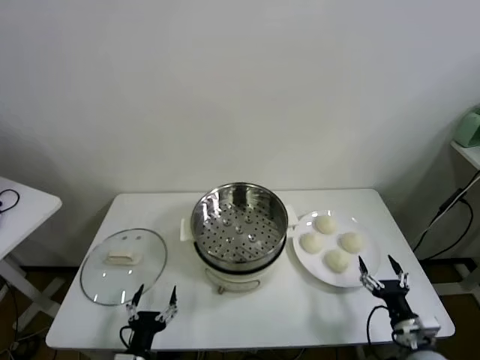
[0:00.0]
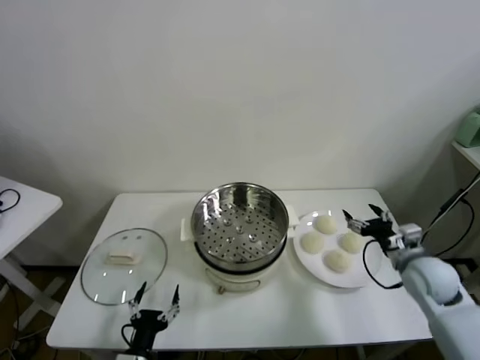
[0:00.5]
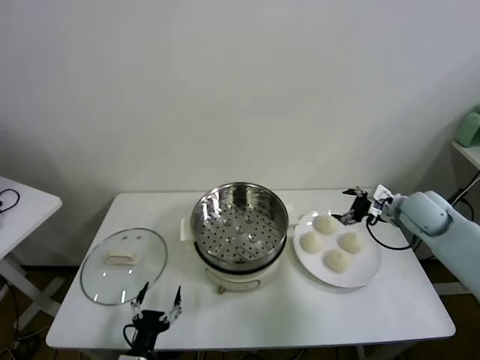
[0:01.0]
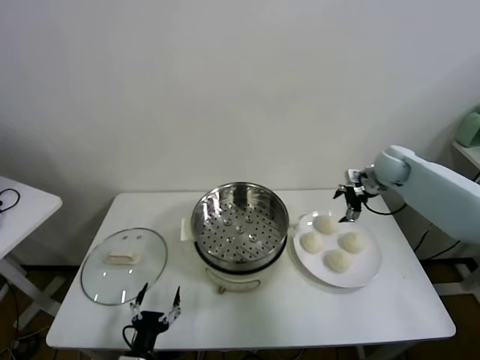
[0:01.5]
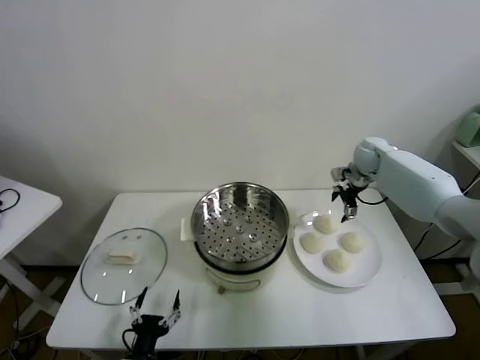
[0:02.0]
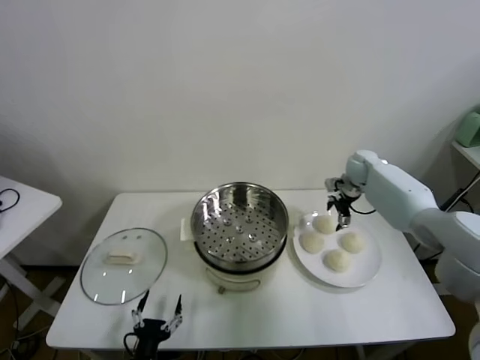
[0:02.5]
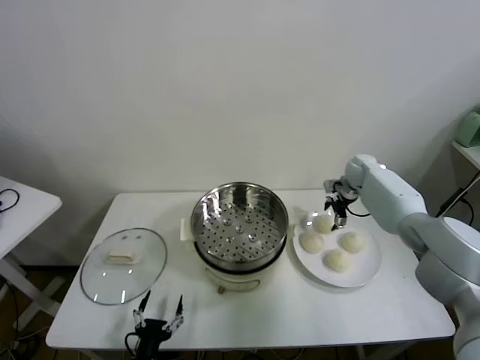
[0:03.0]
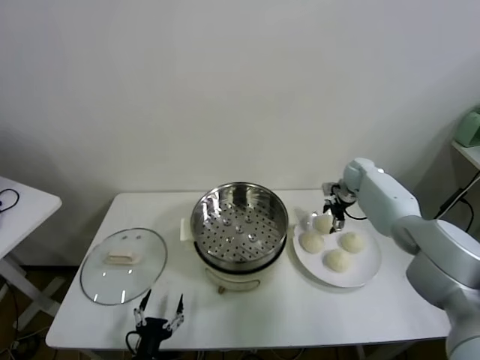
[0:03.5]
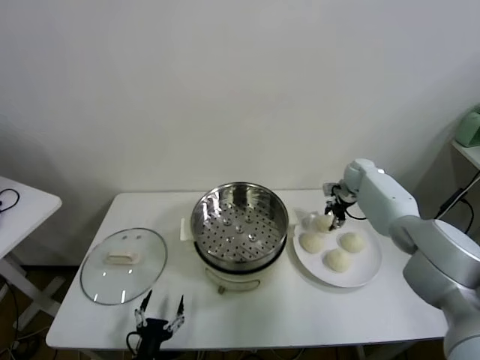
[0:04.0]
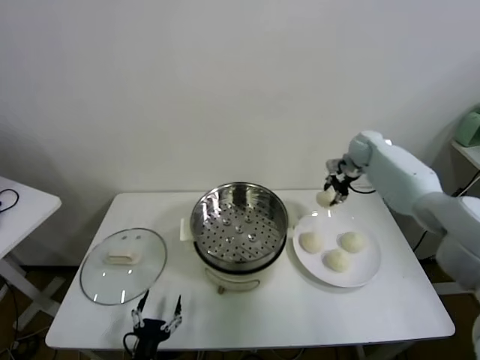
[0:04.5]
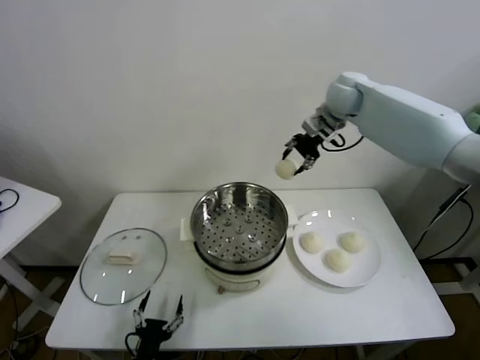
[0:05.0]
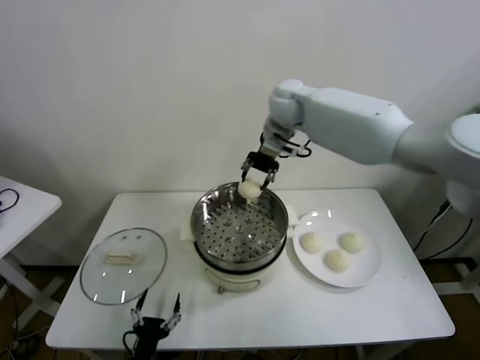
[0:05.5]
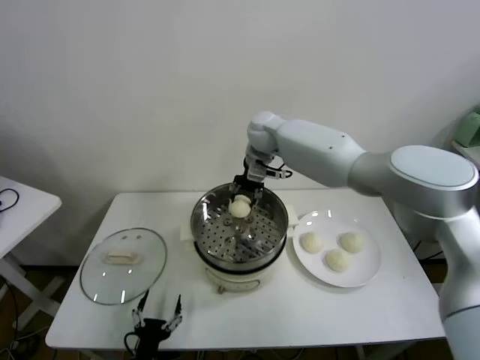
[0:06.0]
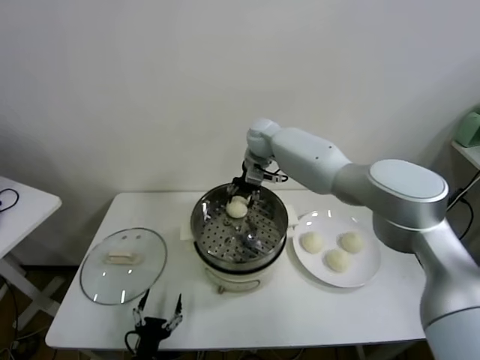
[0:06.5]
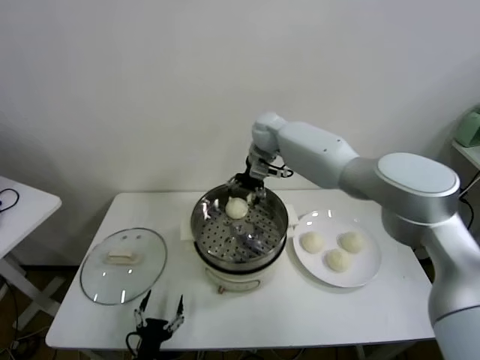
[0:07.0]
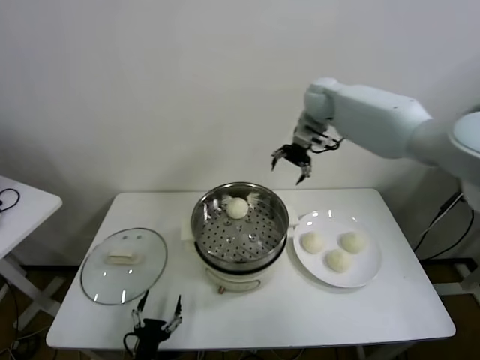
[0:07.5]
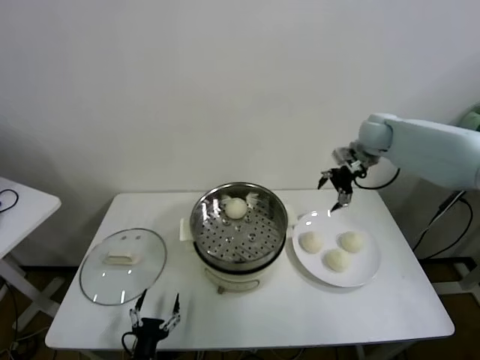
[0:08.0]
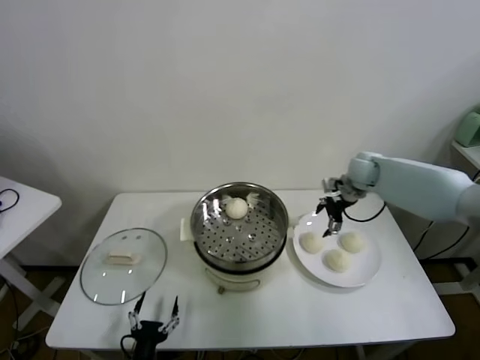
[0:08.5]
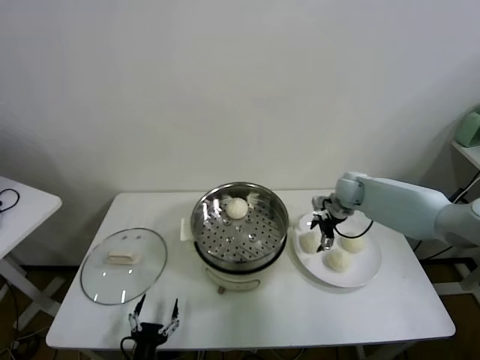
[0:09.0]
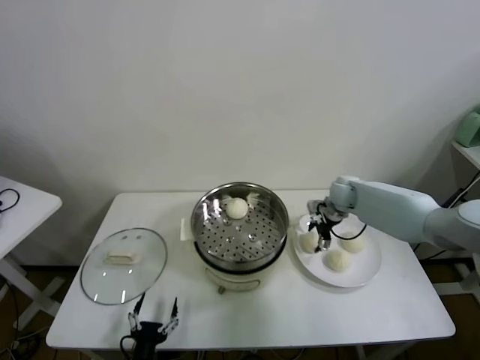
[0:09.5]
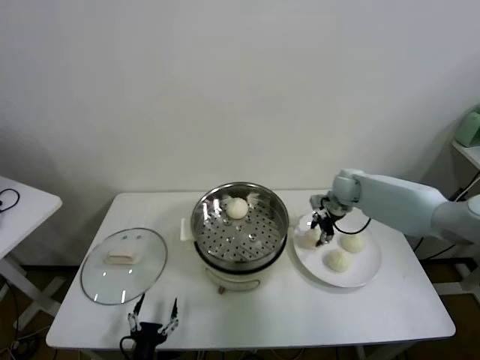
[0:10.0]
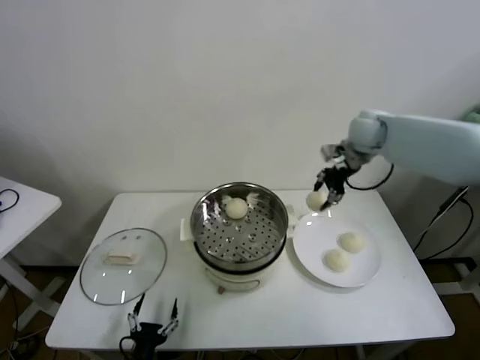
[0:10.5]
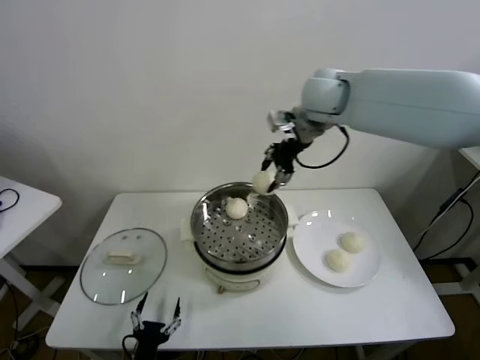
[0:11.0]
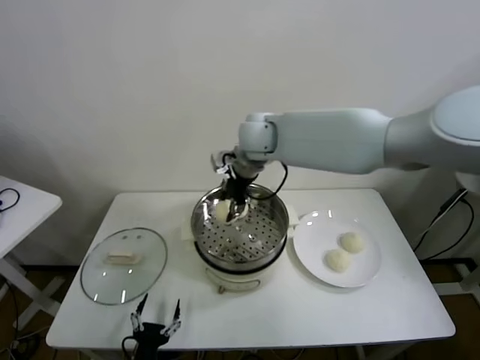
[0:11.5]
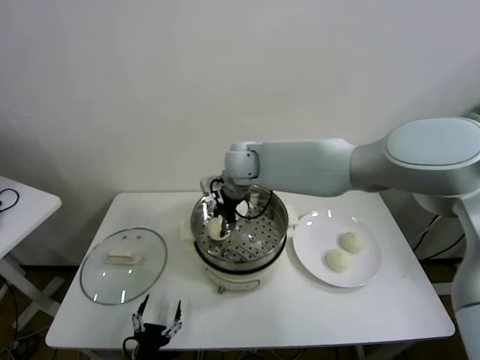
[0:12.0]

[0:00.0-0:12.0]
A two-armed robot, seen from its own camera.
Task of the whole recording: take steamed baozi put them in steamer.
Step, 0.0 to 3.5 s: Grasp the baozi in the plate with right gripper.
Step, 4.0 to 7.0 s: Place the baozi on the steamer with right gripper.
Step, 7.5 to 9.5 s: Grasp the baozi in the plate with right gripper.
2.0 to 4.0 s: The right gripper shifts approximately 5 cm downward, and closes.
4.0 to 6.0 s: The right gripper is displaced to the left and upward by about 35 cm.
6.0 to 8.0 s: The right gripper shifts approximately 30 cm to the right, and opens its fingers.
8.0 to 10.0 s: The right gripper travels downward by approximately 10 cm, and closes.
10.0 to 12.0 s: The right gripper heads to the left, covering roughly 30 cm.

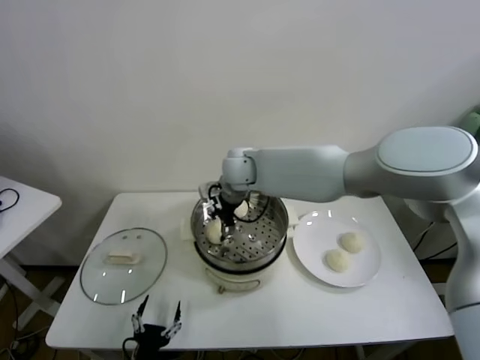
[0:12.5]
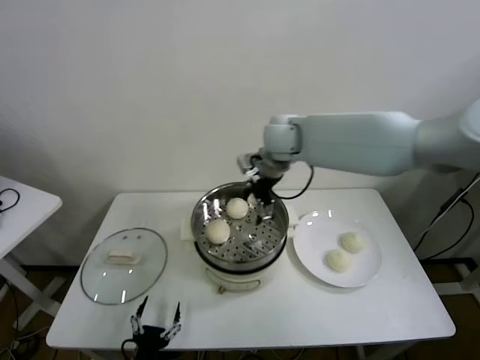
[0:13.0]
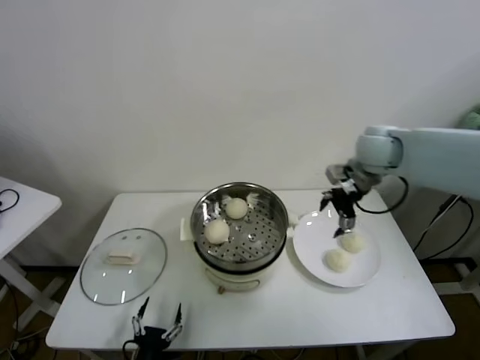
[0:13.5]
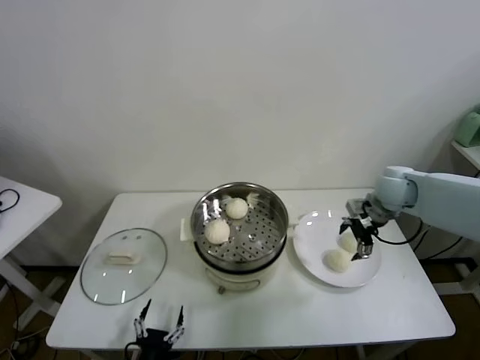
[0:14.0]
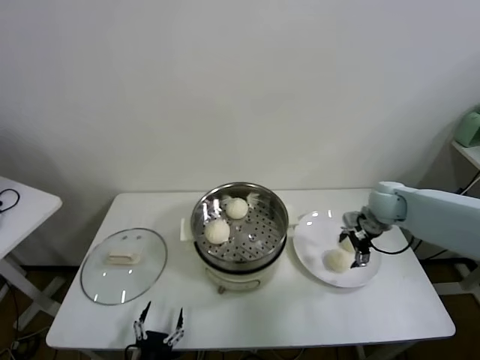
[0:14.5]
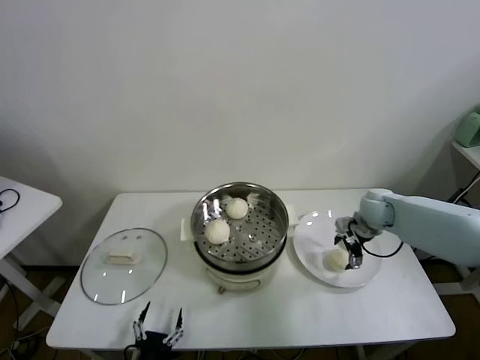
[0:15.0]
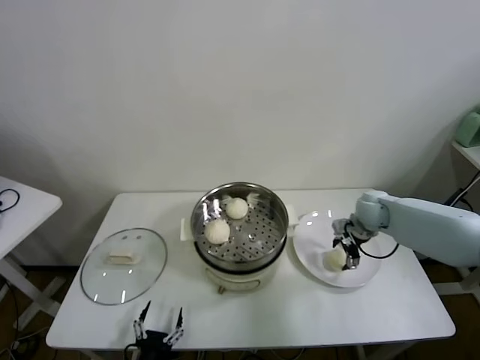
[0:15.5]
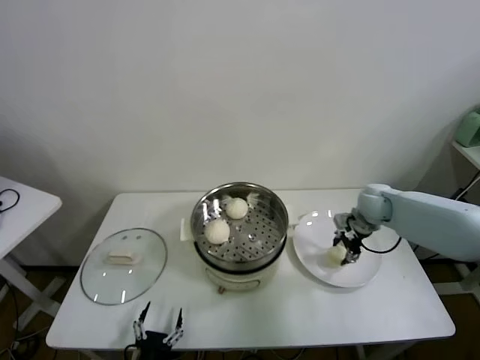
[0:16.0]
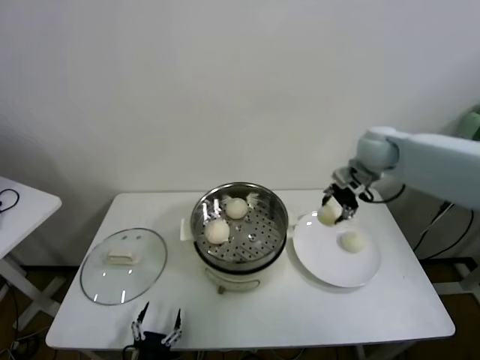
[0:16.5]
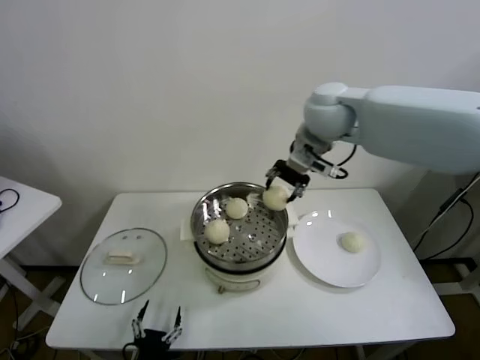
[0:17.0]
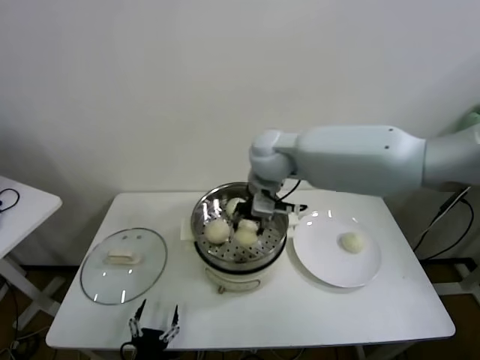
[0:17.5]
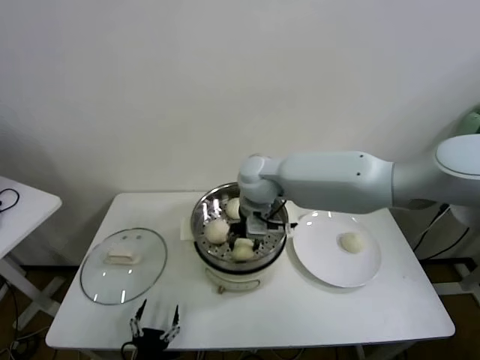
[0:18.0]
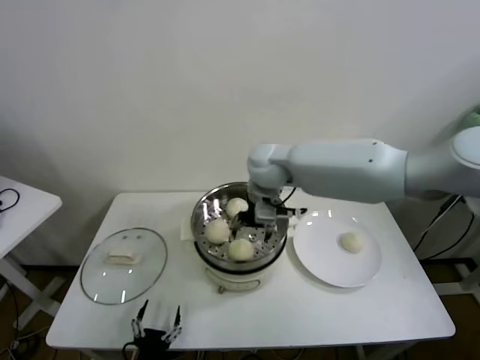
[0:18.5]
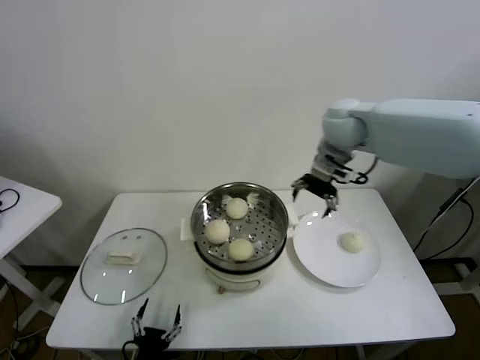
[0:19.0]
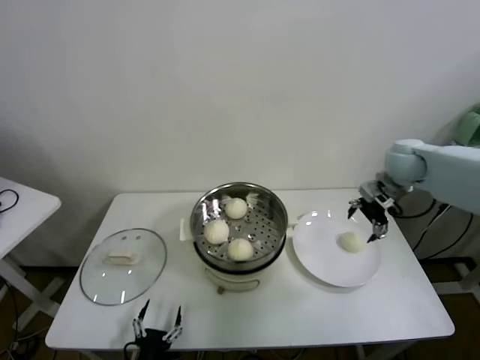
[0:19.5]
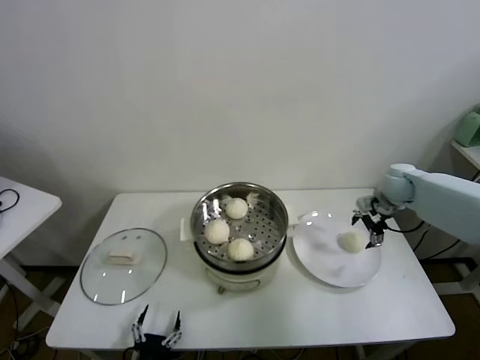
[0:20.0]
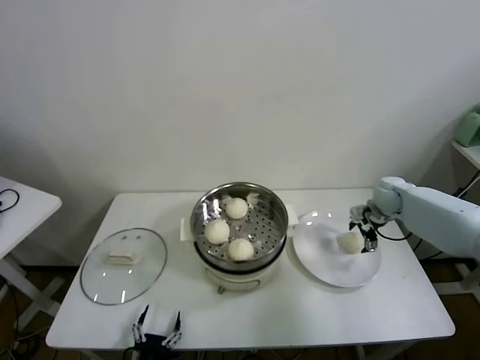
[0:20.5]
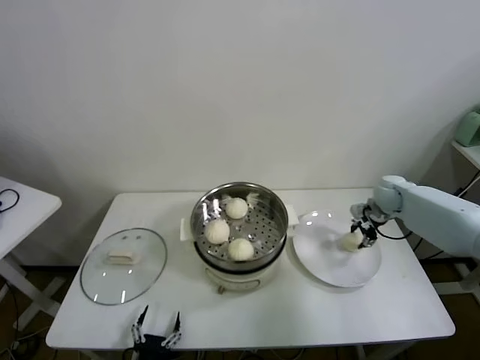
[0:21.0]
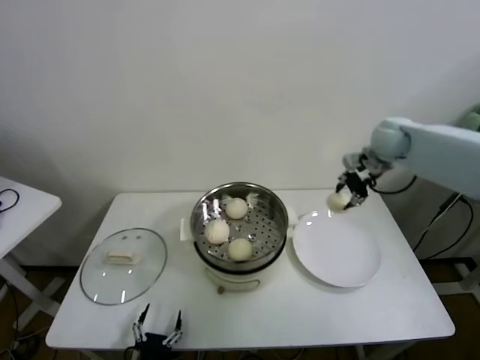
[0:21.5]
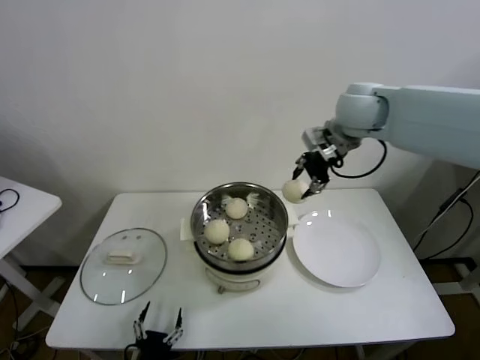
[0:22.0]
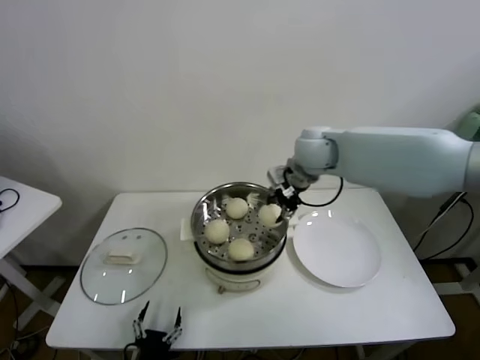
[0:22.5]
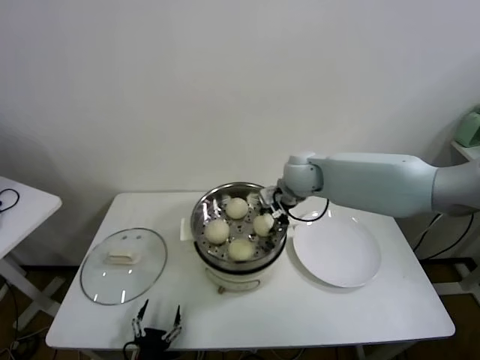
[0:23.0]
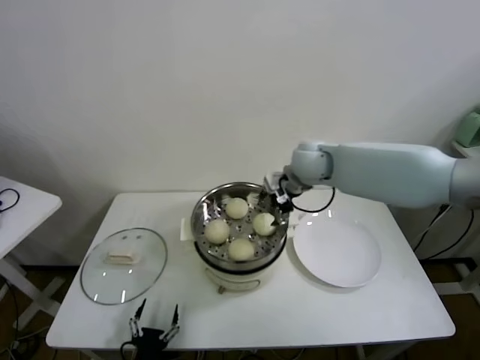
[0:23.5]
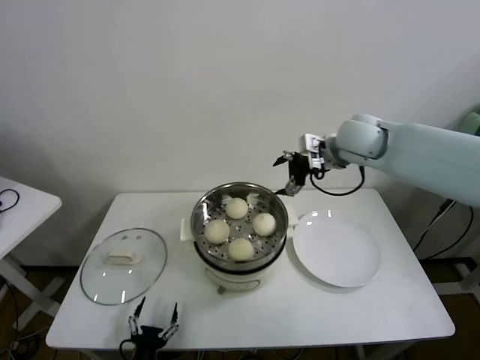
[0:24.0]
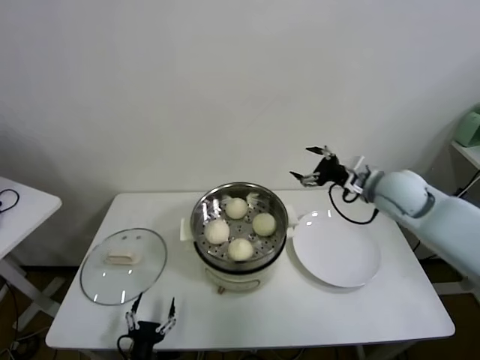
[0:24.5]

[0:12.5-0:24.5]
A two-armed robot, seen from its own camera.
Task of the whole recording: take steamed baozi put them in steamer.
Step, 13.0 to 15.5 s: Grasp the baozi in the plate with right gripper.
Step, 16.0 to 18.0 s: Place the baozi on the steamer with right gripper.
Step, 18.5 to 20.5 s: Grasp the baozi in the plate with right gripper.
Step, 21.0 to 23.0 s: Place the baozi on the steamer with right gripper.
12.5 to 14.5 s: The right gripper goes roughly 35 cm to the right.
14.5 to 16.5 s: The right gripper travels upward by roughly 15 cm, and closes.
16.5 to 18.5 s: The right gripper heads to the left, covering approximately 25 cm, and opens.
18.5 to 20.5 s: The right gripper travels to the right and downward by some 35 cm.
20.5 to 22.5 s: The right gripper heads to the left and upward, covering some 30 cm, and closes.
22.5 to 24.5 s: The right gripper is displaced to the right and backward by some 20 cm, and opens its fingers.

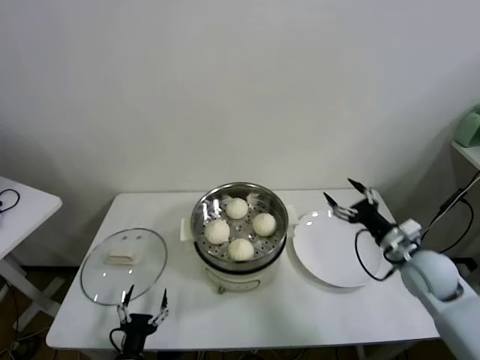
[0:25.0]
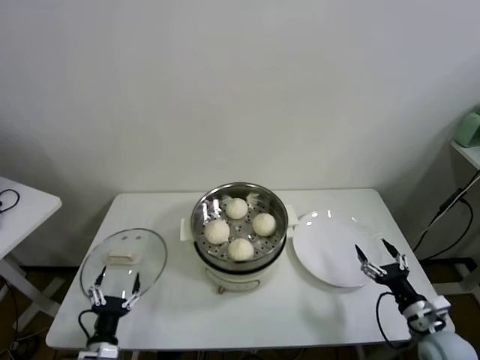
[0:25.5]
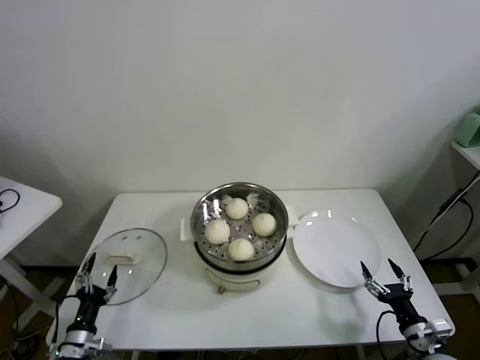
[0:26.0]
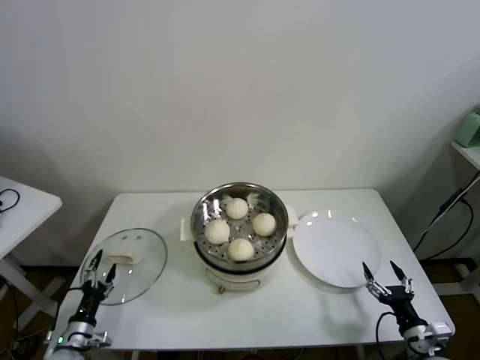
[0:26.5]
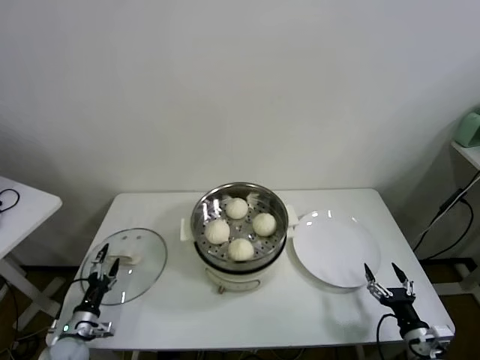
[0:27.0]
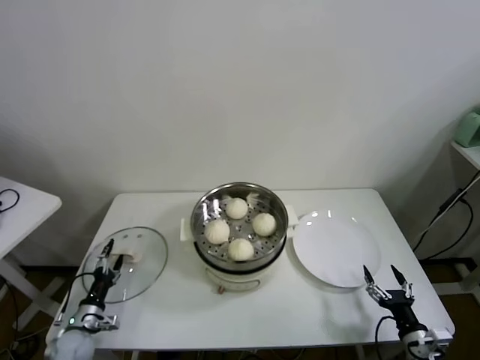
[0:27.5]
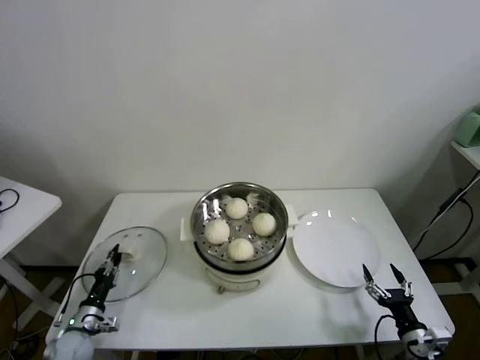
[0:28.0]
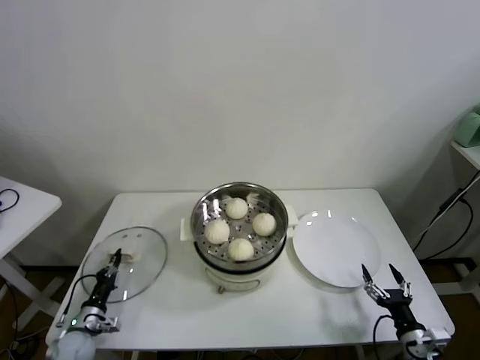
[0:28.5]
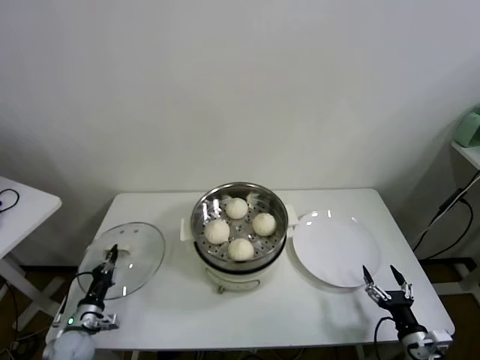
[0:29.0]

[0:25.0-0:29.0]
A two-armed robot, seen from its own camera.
Task of the whole recording: take steamed baozi put them in steamer.
25.0 to 27.0 s: The left gripper shifts approximately 20 cm to the left and forward, while the right gripper is displaced backward and downward by some 25 cm.
27.0 to 29.0 s: The left gripper closes.
